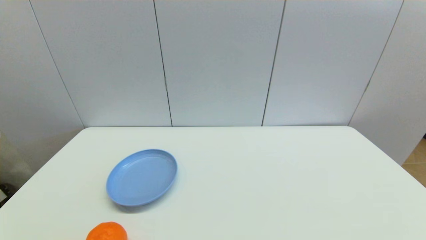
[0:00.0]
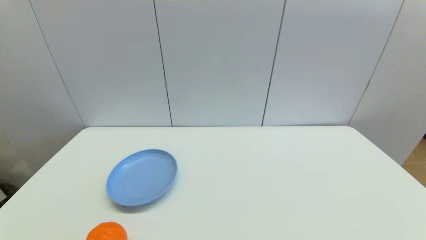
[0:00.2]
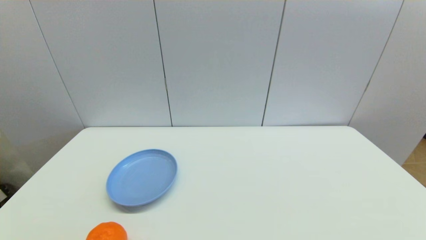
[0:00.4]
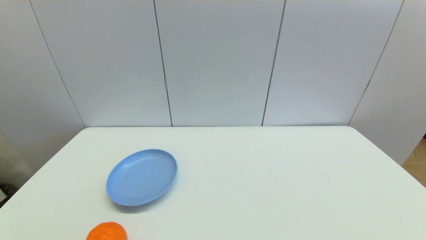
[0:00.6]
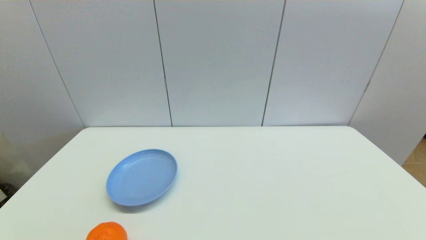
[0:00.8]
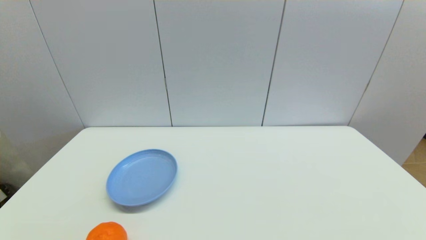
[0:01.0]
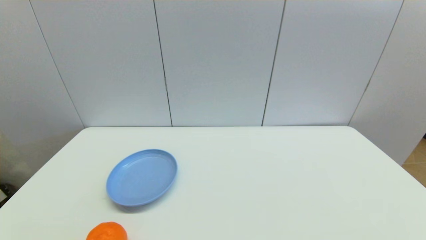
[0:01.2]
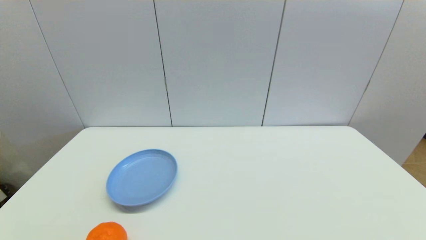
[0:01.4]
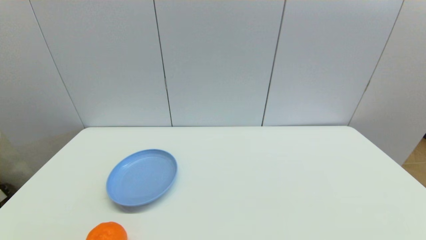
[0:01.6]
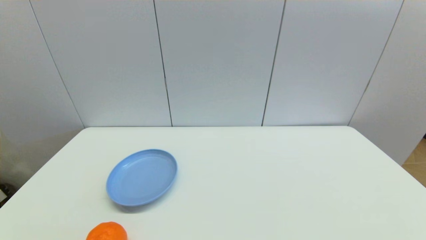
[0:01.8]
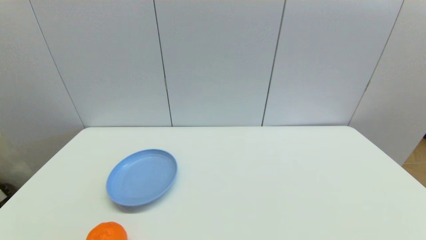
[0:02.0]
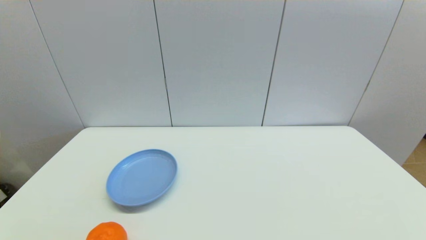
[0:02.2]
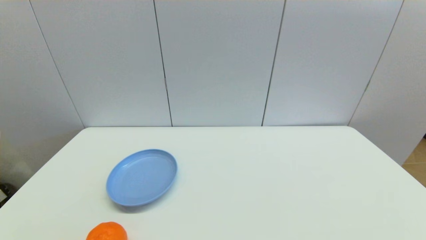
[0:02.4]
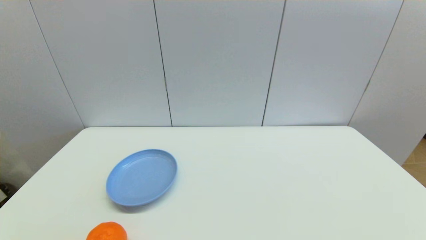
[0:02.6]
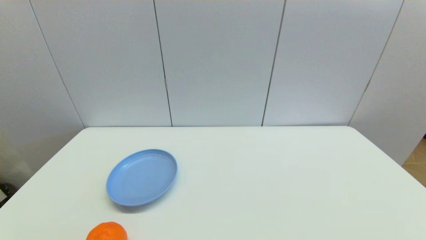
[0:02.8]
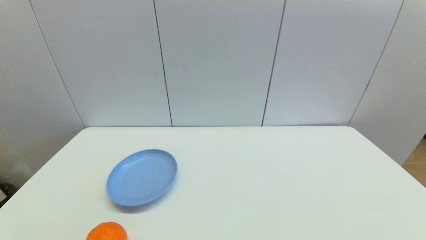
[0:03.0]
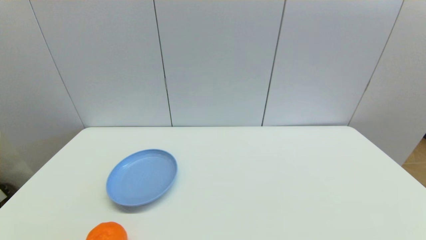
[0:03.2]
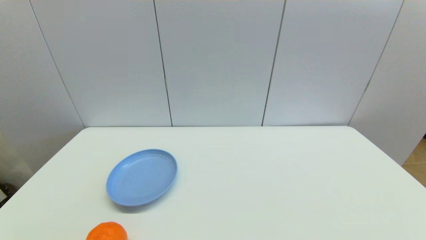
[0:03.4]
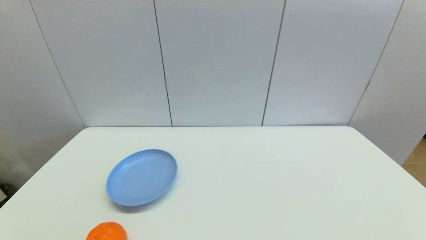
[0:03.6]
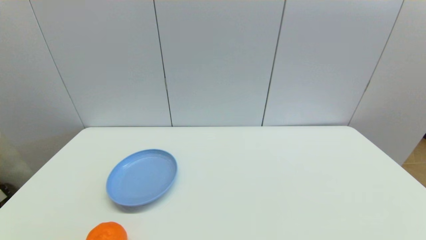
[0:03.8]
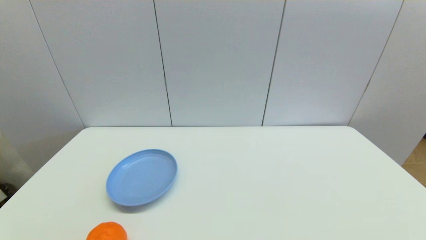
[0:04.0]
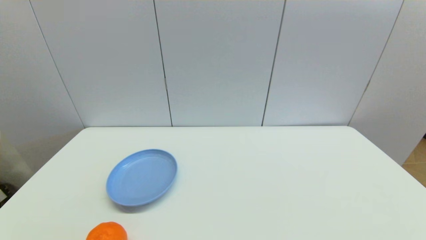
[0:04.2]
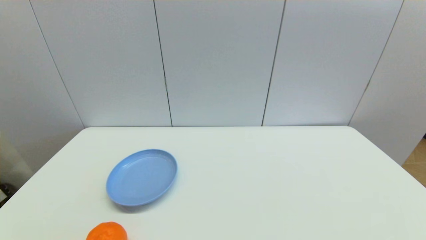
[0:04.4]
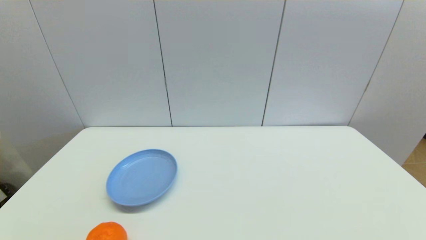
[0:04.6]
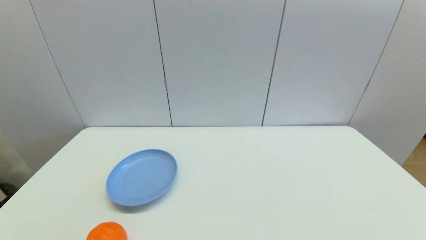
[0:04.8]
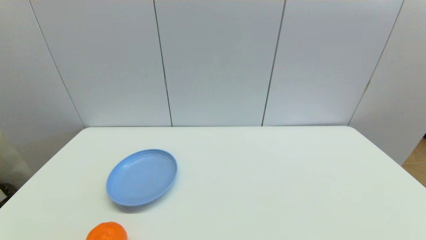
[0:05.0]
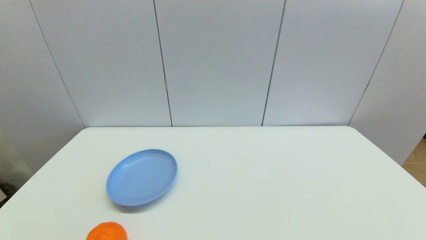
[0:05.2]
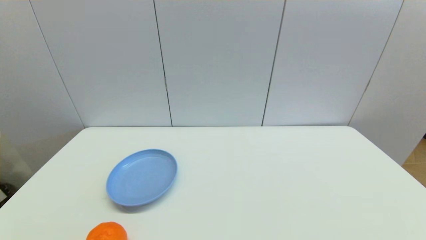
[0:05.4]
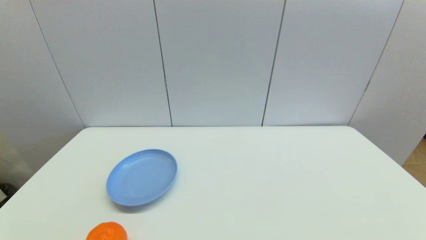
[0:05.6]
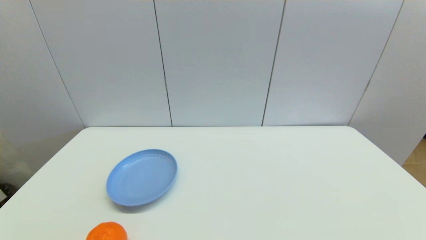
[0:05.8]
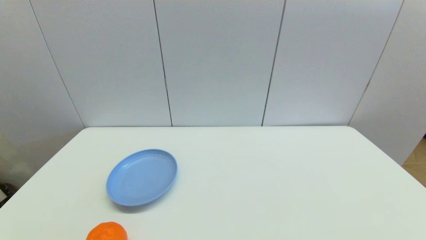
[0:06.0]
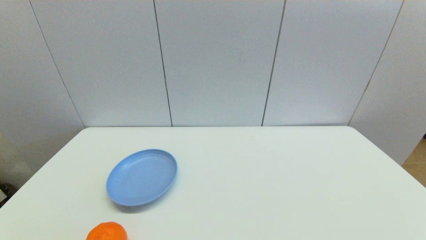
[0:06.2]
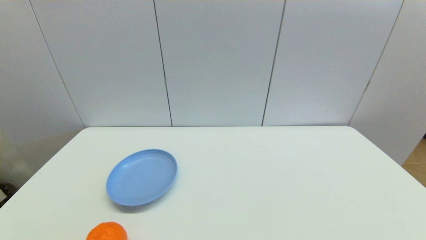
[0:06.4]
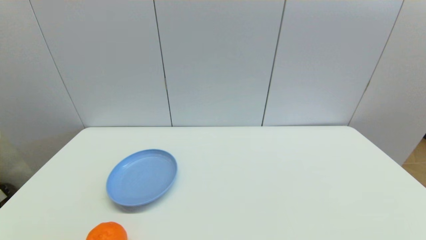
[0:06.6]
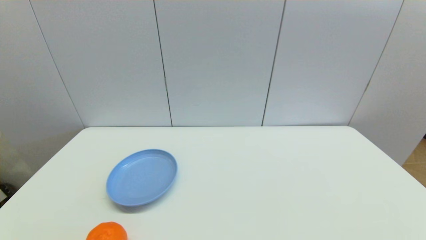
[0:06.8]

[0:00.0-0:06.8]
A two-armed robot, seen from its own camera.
0:00.0 to 0:06.8: Both grippers stay put.
